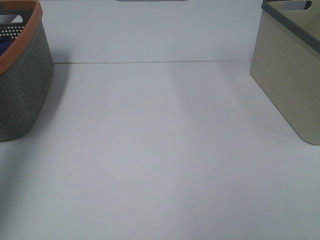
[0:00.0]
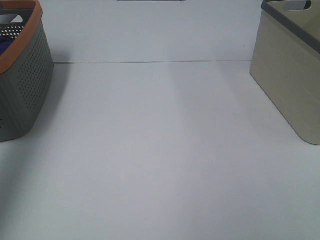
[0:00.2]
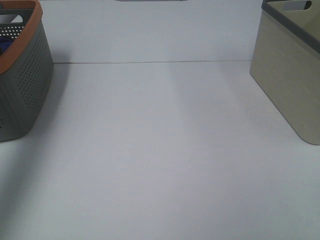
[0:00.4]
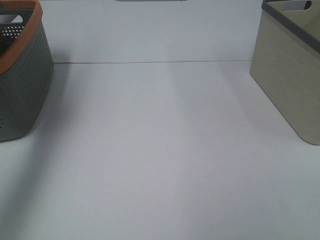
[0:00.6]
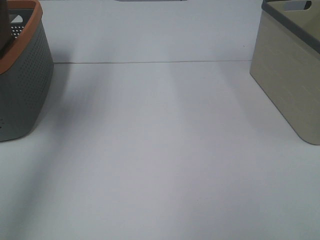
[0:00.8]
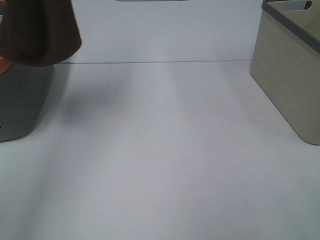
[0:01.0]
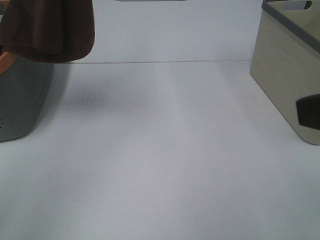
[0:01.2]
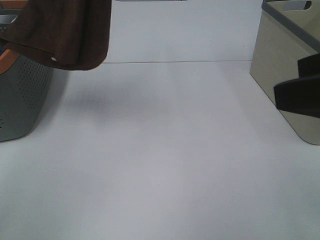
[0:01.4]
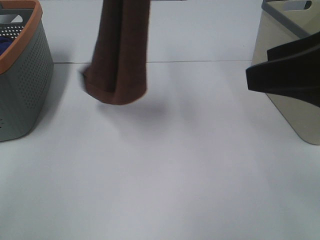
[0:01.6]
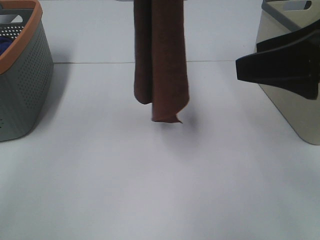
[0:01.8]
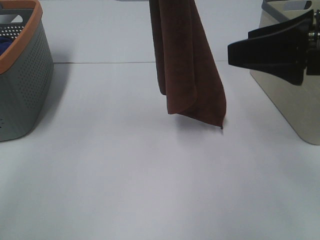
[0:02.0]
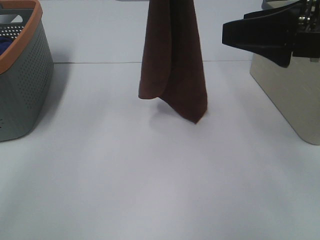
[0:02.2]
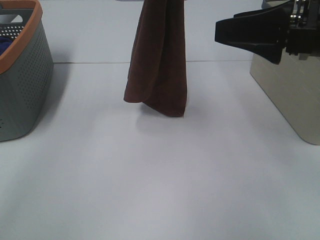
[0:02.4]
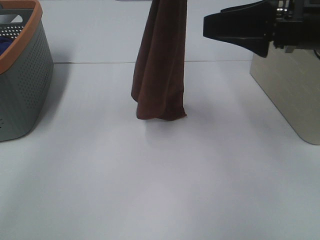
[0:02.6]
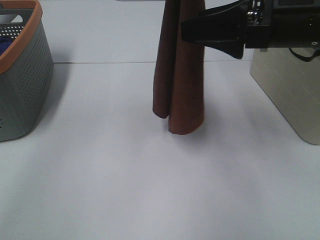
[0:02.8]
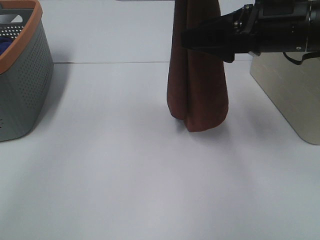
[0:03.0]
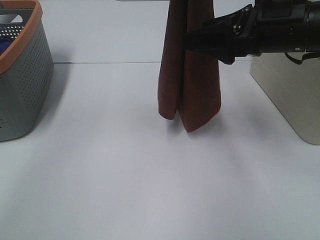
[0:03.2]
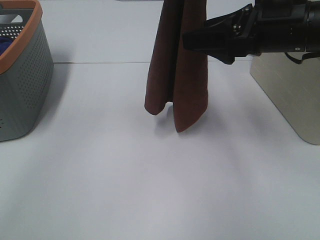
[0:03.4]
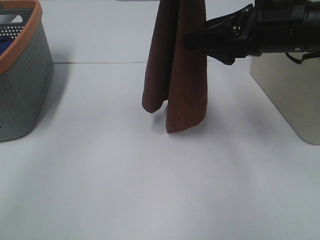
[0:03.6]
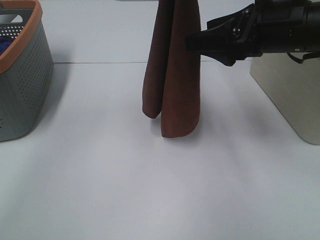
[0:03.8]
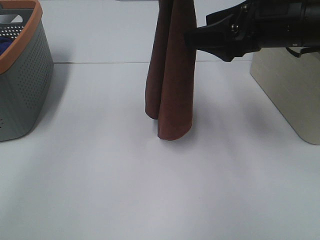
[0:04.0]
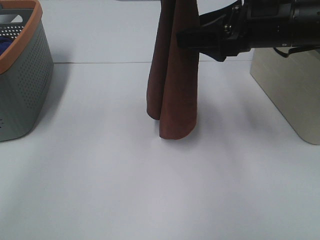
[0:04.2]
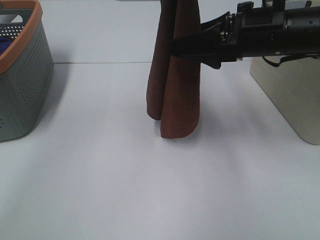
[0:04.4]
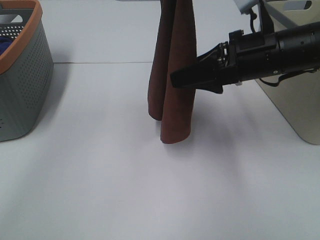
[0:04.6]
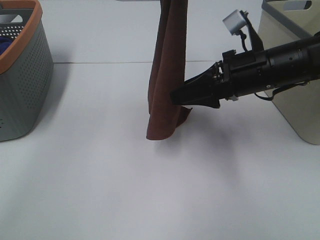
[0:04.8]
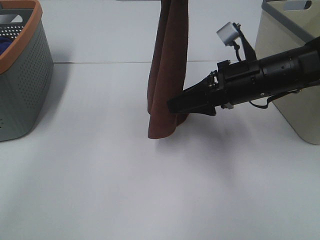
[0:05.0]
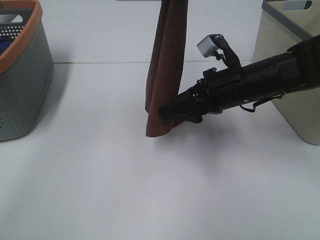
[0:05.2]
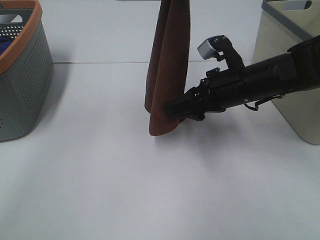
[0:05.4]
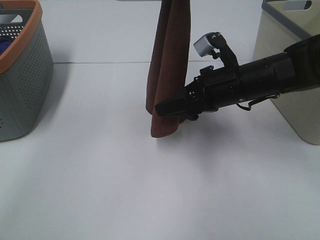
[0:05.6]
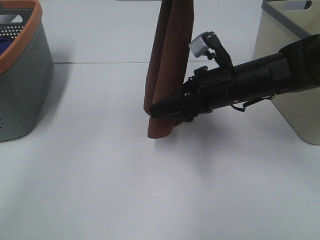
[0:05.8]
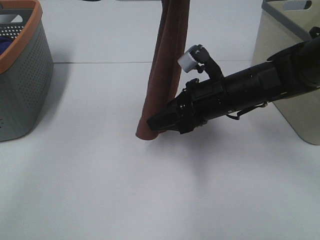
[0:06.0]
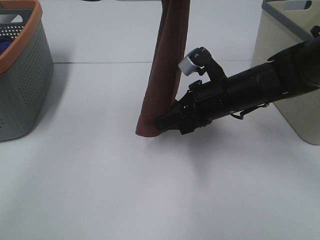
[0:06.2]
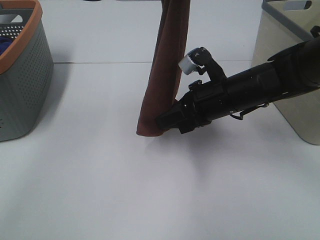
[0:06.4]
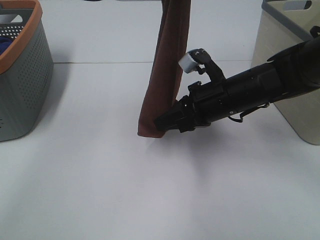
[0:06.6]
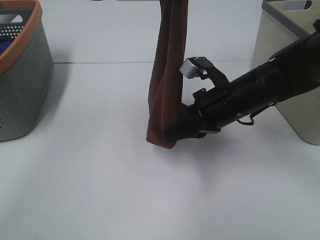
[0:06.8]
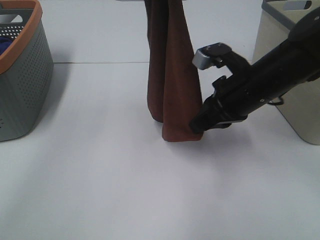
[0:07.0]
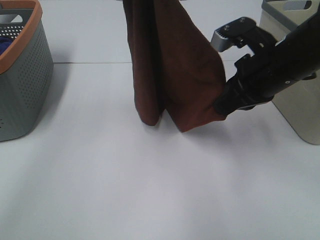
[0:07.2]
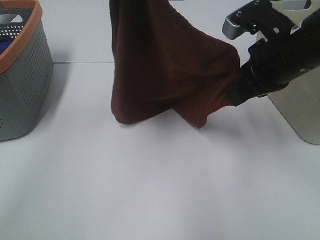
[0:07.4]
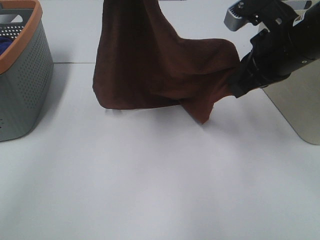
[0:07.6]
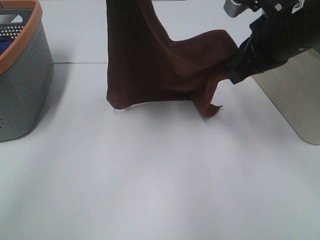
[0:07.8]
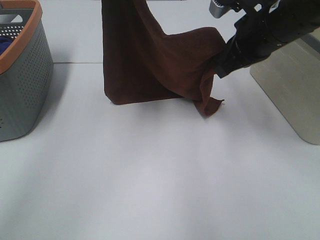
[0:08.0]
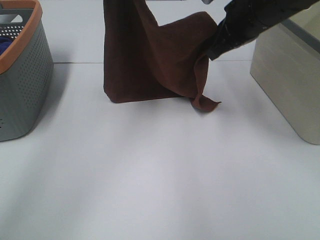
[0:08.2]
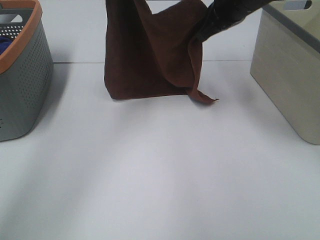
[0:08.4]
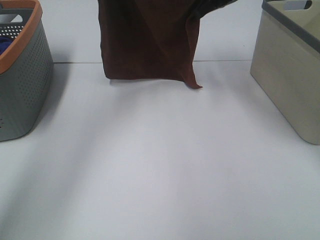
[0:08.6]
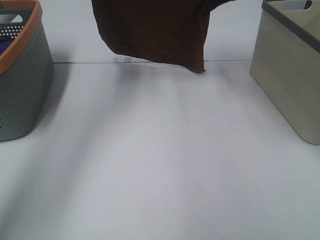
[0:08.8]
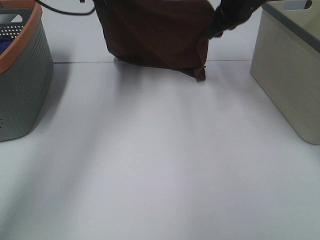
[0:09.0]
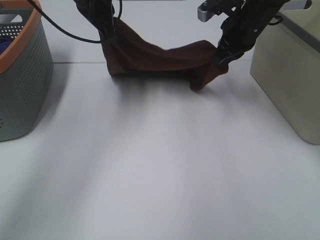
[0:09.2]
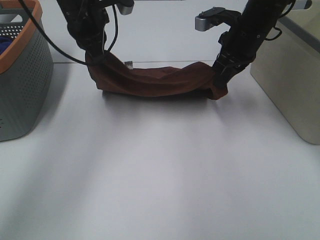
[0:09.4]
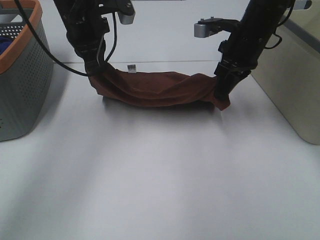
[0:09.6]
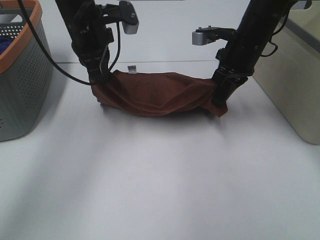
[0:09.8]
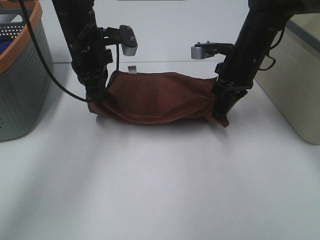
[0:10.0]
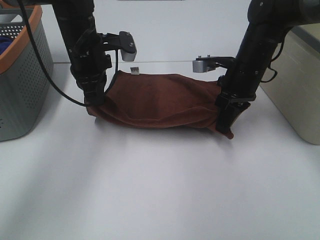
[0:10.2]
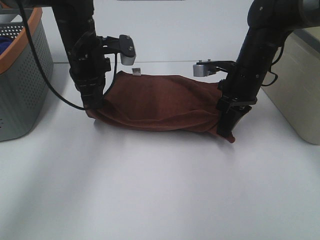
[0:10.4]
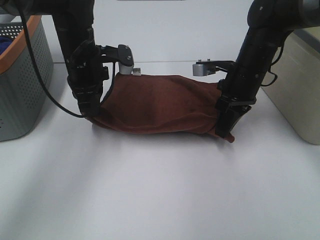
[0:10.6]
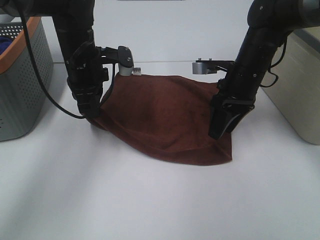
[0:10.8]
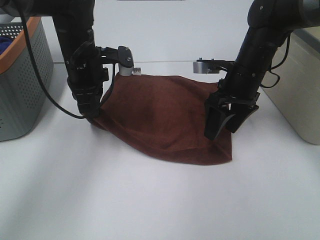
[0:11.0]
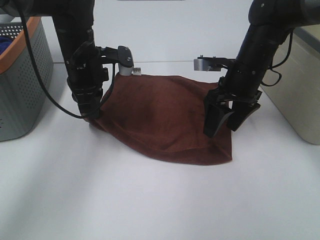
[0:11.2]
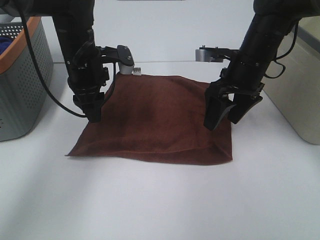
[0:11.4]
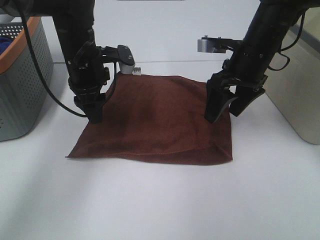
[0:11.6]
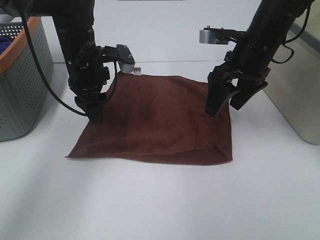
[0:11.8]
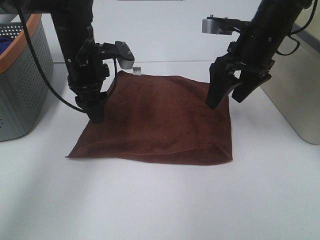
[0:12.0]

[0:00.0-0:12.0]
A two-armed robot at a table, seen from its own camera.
Task of the whole recording: Remove the towel and place it.
Step, 0:00.0 to 0:04.8: Right hand: grab a corner of the brown towel and straighten it.
Step, 0:05.0 to 0:06.6: Right hand: spread the brown towel flat on the table.
Step, 0:05.0 to 0:07.0: Left hand: spread the brown towel flat on the table.
0:00.0 to 0:01.6: The right gripper is displaced forward by approximately 20 cm. Meanwhile the left gripper travels to the right by roughly 30 cm.
0:01.6 to 0:03.0: The left gripper travels to the right by approximately 5 cm. Meanwhile the right gripper is displaced forward and downward by some 10 cm.
0:03.0 to 0:04.4: The grippers stay close to where they were, moving slightly.
0:04.4 to 0:06.0: The right gripper is displaced downward by roughly 10 cm, and closes.
0:06.0 to 0:07.6: The right gripper goes roughly 10 cm upward, and closes up.
0:07.6 to 0:09.0: The right gripper moves forward, approximately 20 cm. The left gripper moves forward, downward and to the left, some 20 cm.
0:09.0 to 0:10.4: Both grippers move downward and backward, some 15 cm.
0:10.4 to 0:12.0: The left gripper opens up. The right gripper moves upward, about 10 cm, and opens.

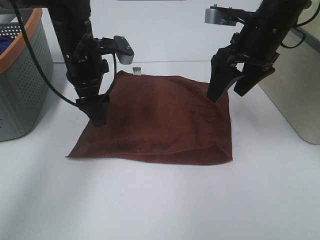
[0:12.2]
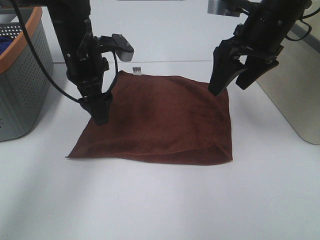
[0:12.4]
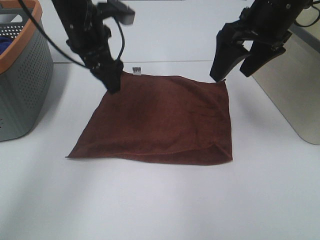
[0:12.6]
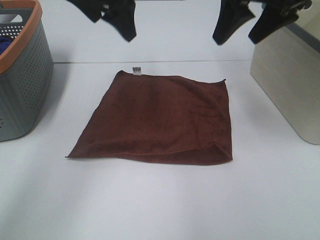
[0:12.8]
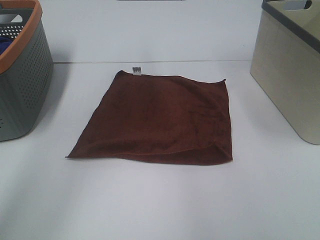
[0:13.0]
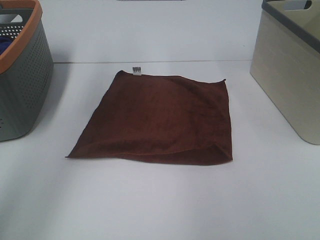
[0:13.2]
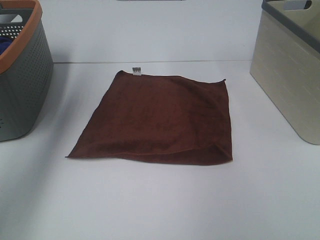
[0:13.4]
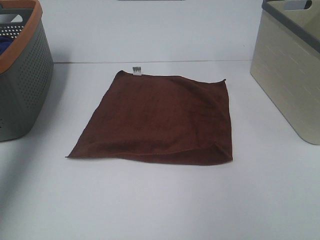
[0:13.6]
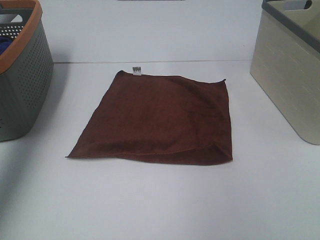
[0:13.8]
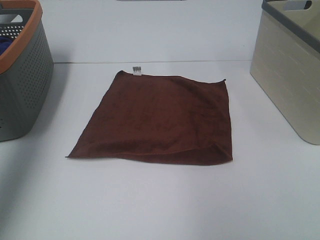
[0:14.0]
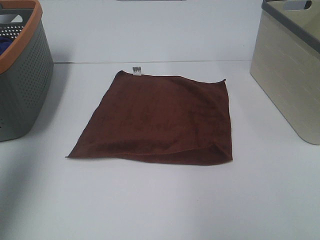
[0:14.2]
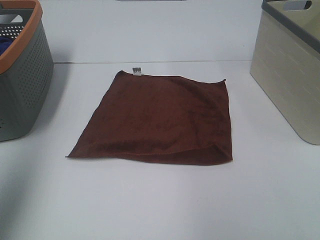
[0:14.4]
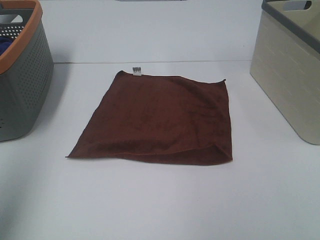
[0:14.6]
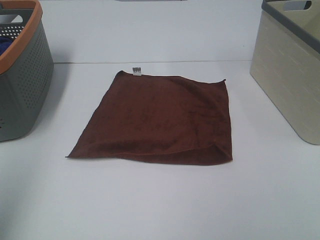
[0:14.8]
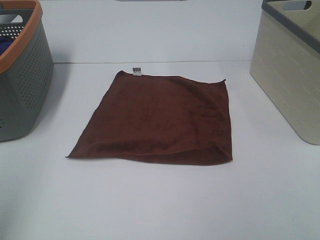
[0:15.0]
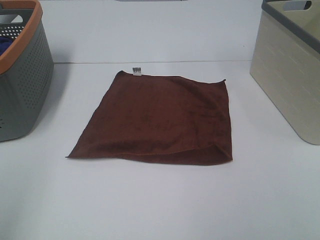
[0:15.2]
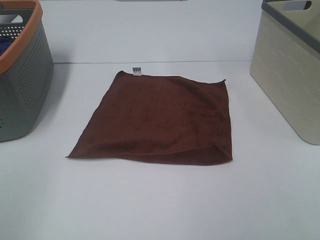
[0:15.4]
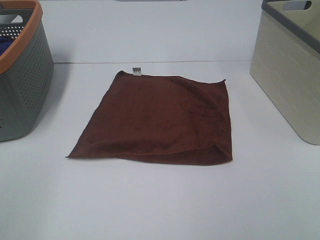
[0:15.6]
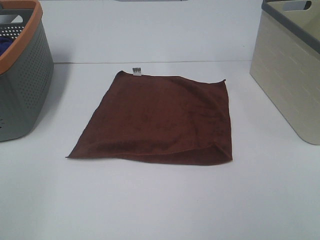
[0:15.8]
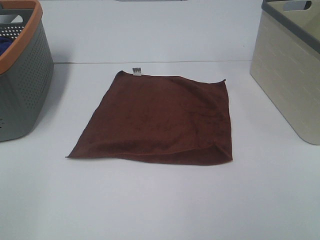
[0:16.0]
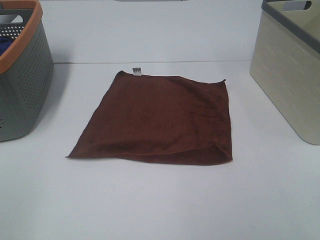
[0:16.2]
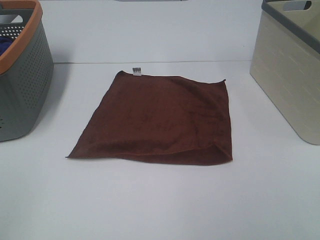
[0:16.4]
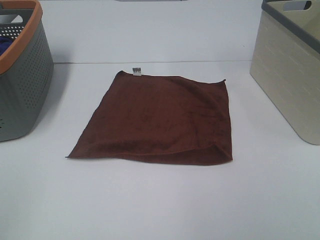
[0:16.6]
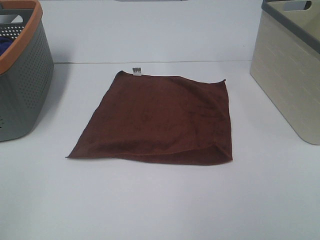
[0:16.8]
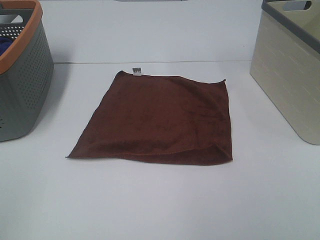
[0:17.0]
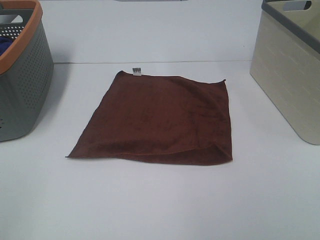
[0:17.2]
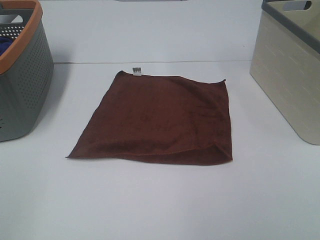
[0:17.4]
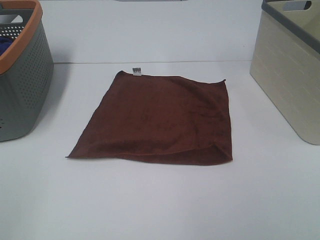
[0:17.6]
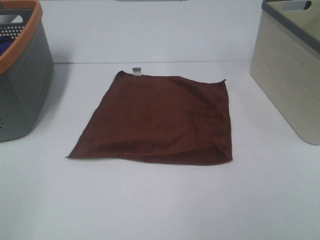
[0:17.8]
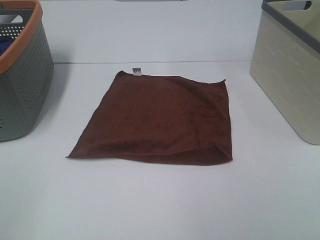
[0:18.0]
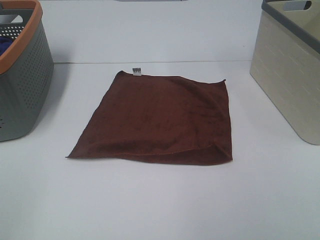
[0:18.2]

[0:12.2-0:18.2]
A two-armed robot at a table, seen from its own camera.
Task of the whole recording: Remove the towel and place it.
0:12.2 to 0:13.8: The left gripper travels upward and to the left by some 30 cm, while the right gripper heads upward, to the right and backward, covering approximately 25 cm.
0:13.8 to 0:15.2: The left gripper moves backward, approximately 30 cm.
0:16.6 to 0:18.2: Both grippers stay put.

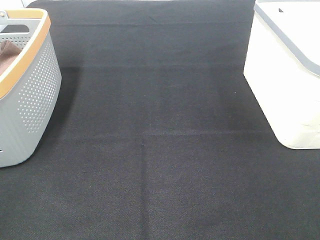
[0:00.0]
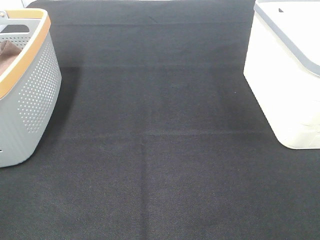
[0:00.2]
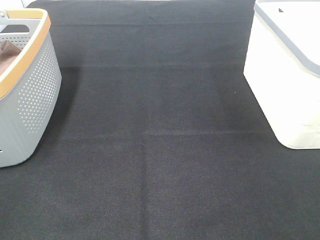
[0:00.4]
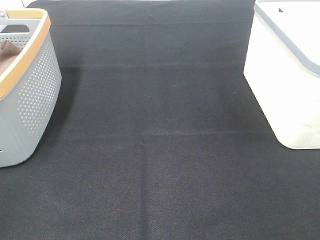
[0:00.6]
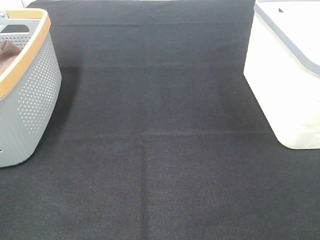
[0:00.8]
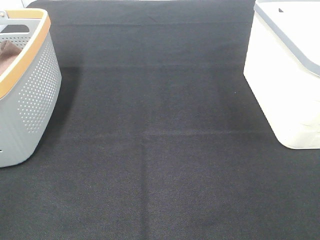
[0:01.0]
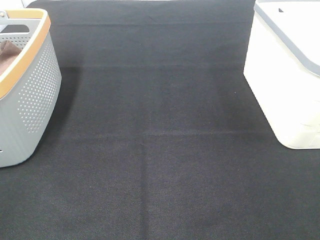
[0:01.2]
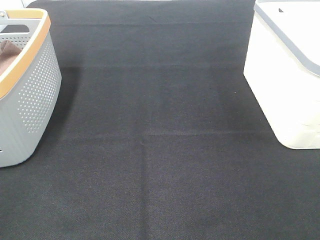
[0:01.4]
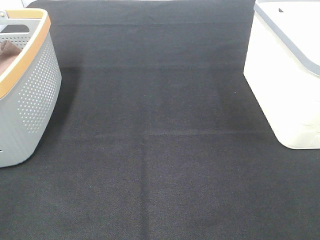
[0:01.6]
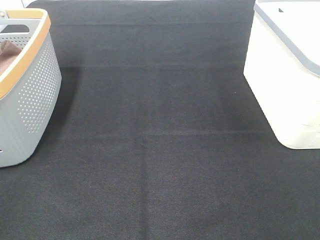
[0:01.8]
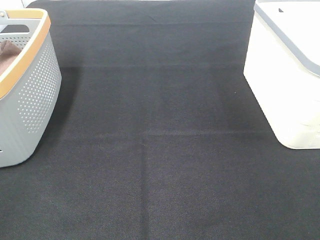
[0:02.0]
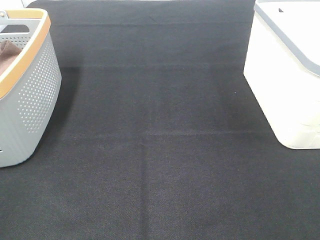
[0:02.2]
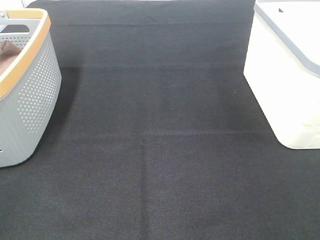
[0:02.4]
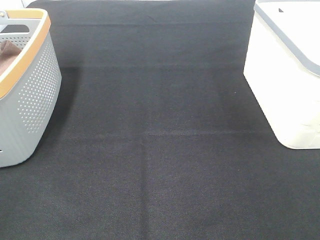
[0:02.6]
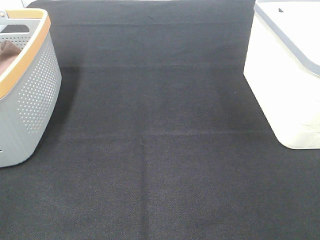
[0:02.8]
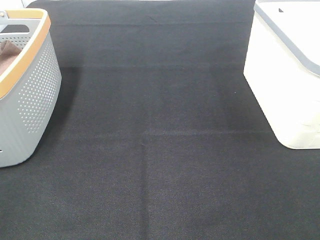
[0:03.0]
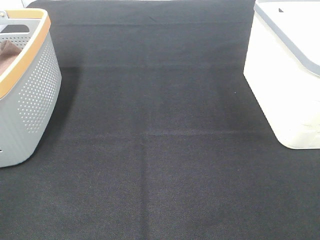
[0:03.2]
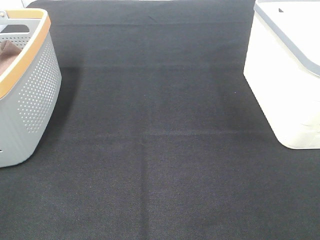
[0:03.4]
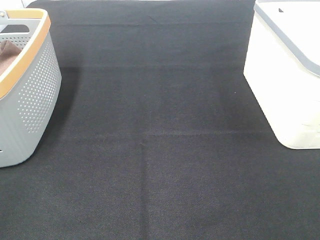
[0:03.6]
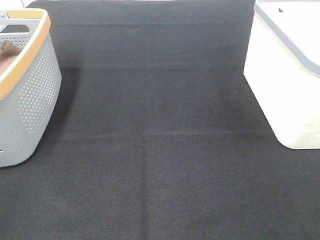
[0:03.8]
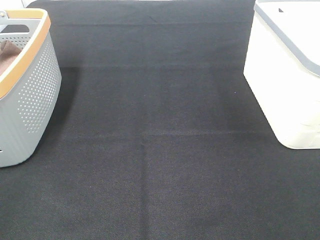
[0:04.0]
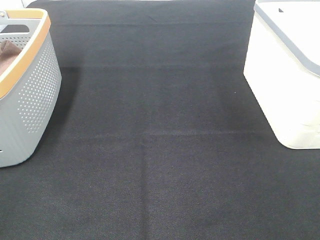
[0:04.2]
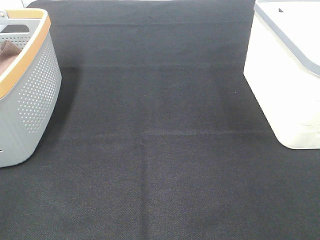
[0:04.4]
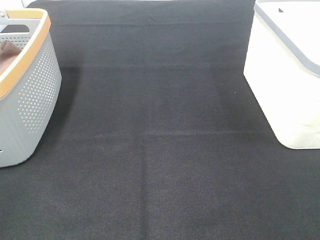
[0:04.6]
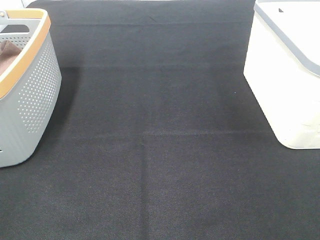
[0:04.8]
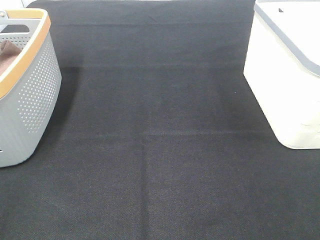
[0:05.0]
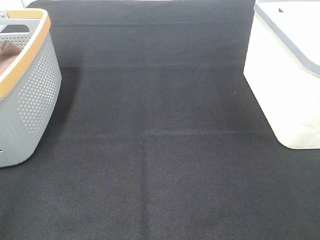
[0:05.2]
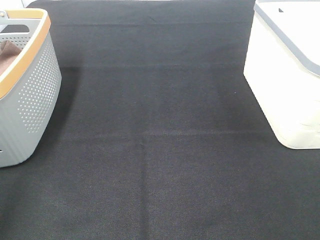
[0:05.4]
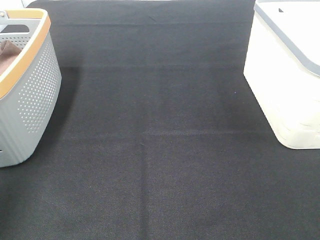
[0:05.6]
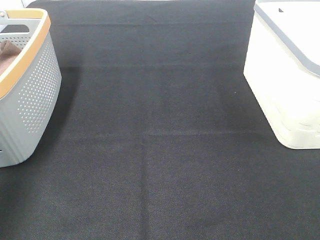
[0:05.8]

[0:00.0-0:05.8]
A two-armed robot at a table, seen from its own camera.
Task of the whole recording: Remove the towel and place it.
0:00.0 to 0:04.4: Both grippers stay about where they are.
0:04.4 to 0:05.8: The left gripper is displaced forward and upward by roughly 20 cm.
